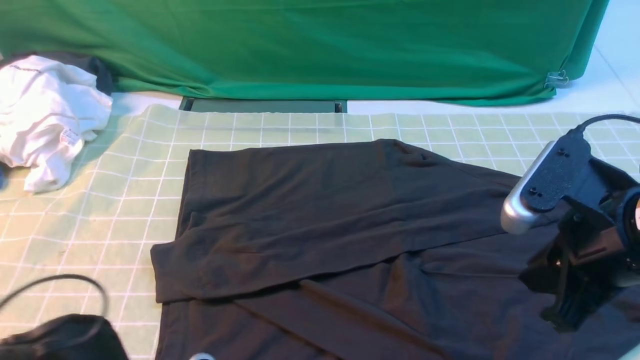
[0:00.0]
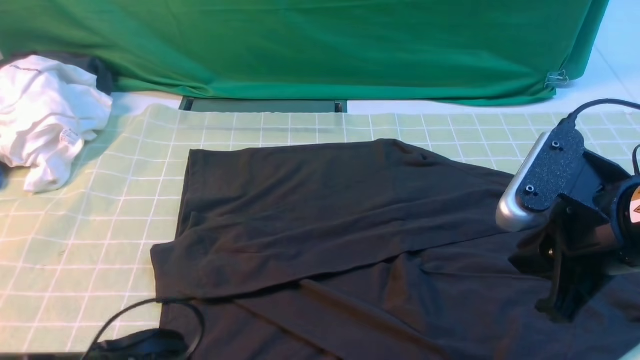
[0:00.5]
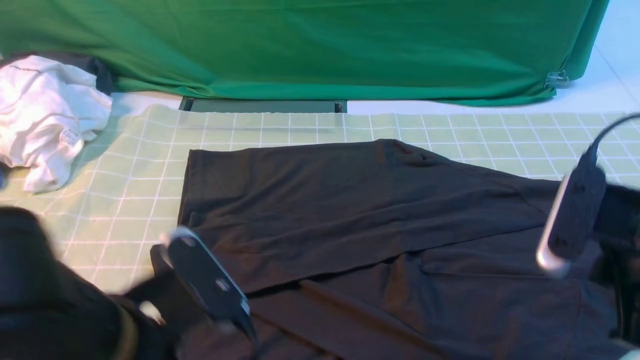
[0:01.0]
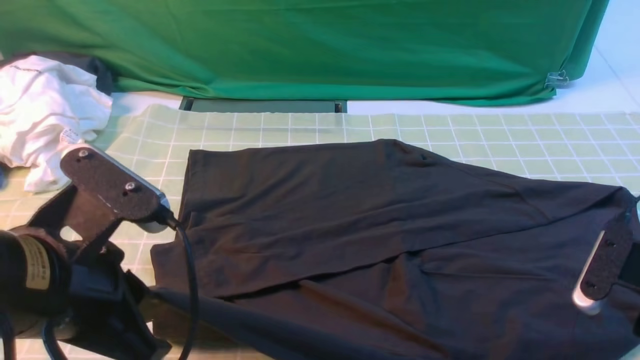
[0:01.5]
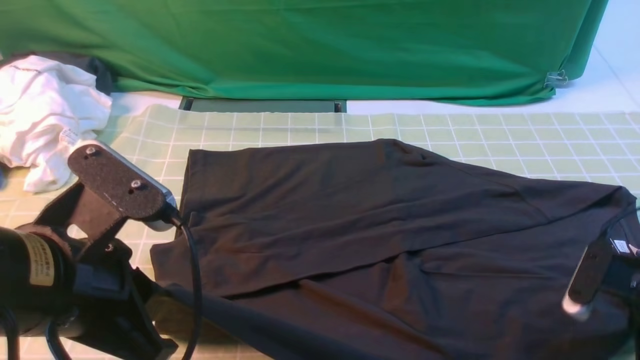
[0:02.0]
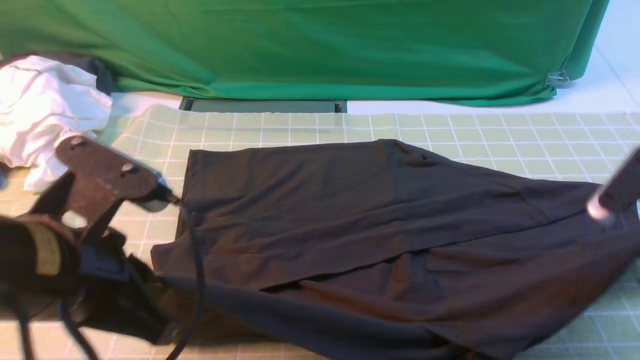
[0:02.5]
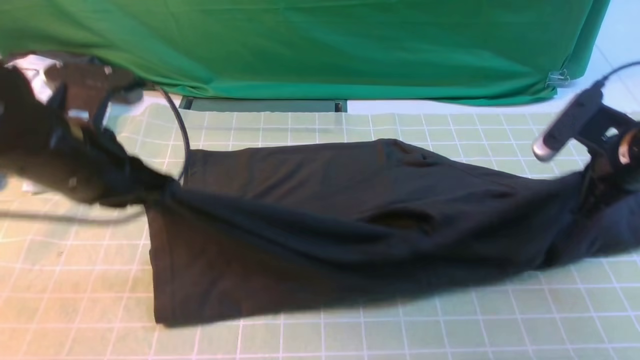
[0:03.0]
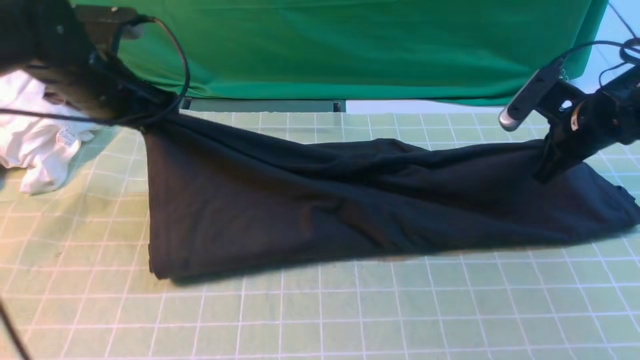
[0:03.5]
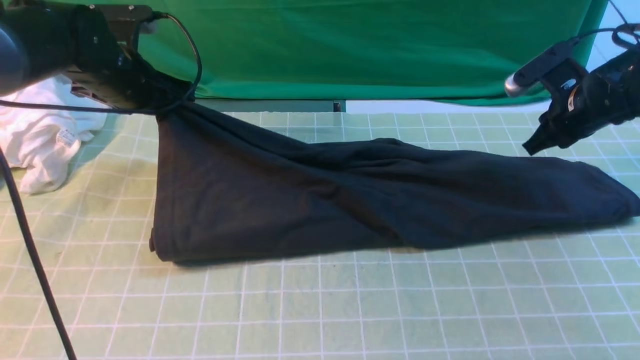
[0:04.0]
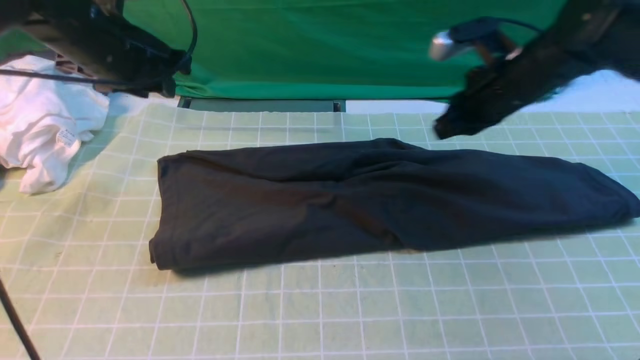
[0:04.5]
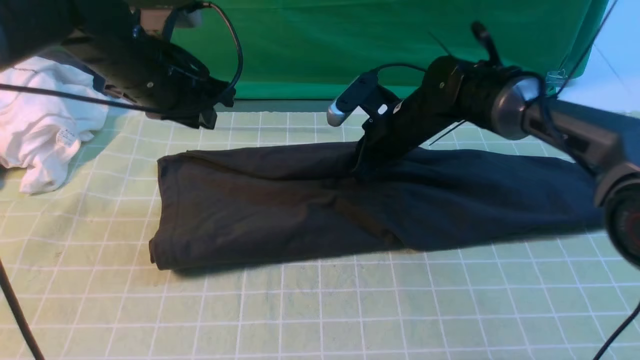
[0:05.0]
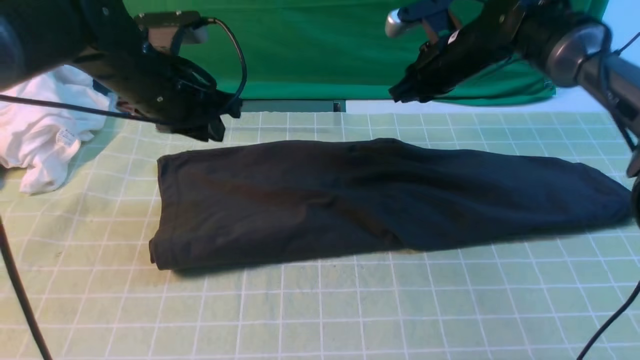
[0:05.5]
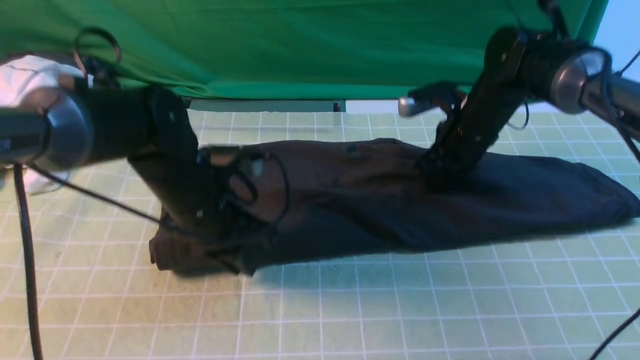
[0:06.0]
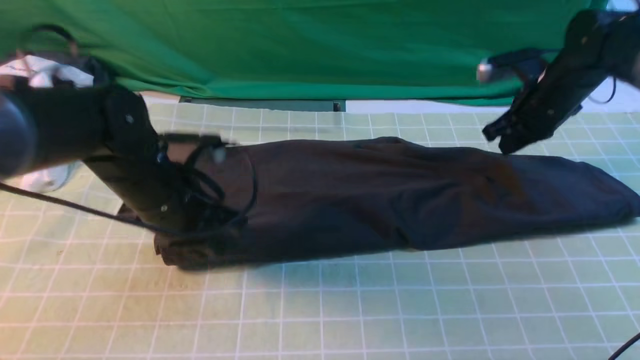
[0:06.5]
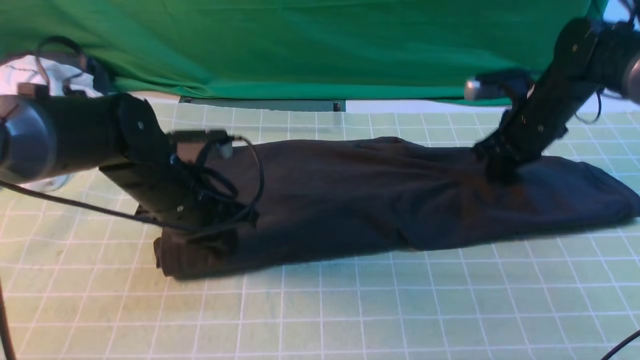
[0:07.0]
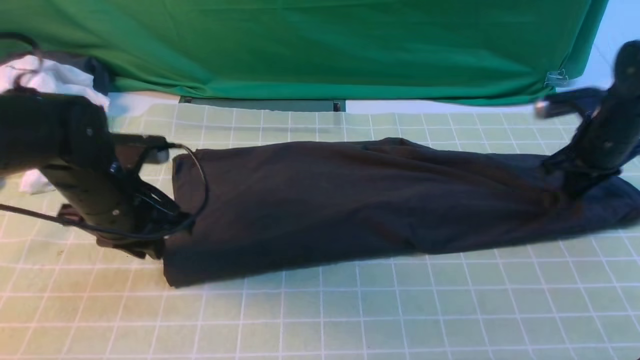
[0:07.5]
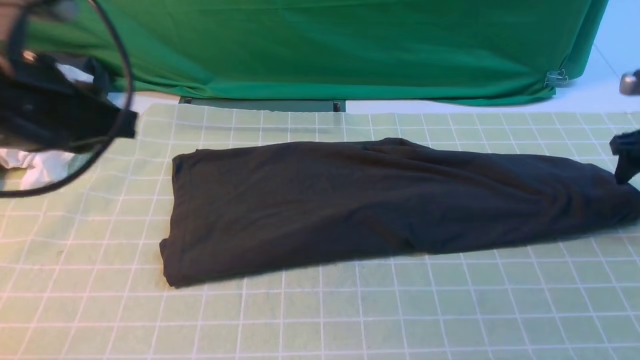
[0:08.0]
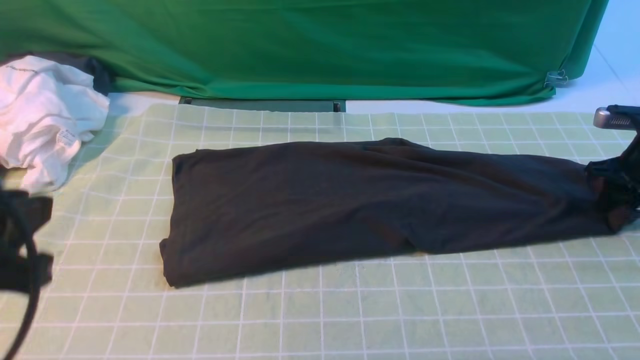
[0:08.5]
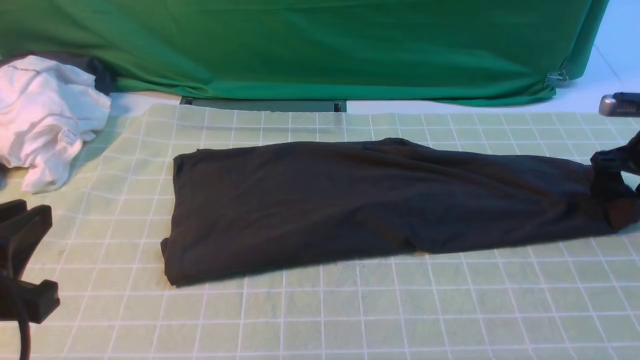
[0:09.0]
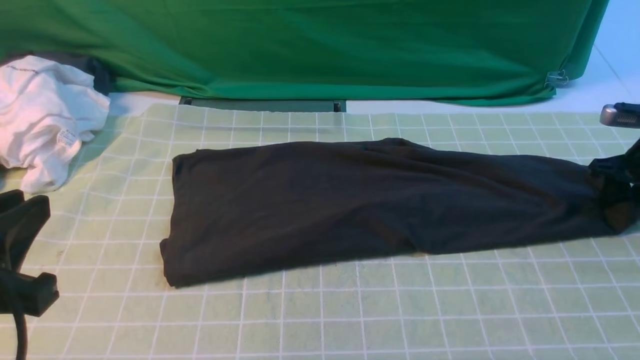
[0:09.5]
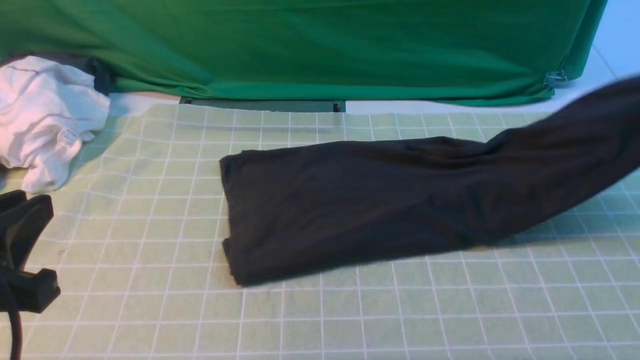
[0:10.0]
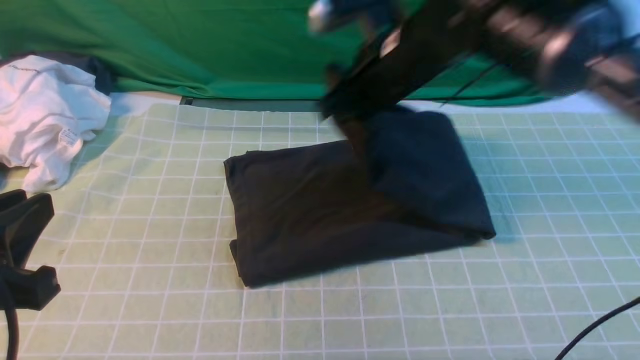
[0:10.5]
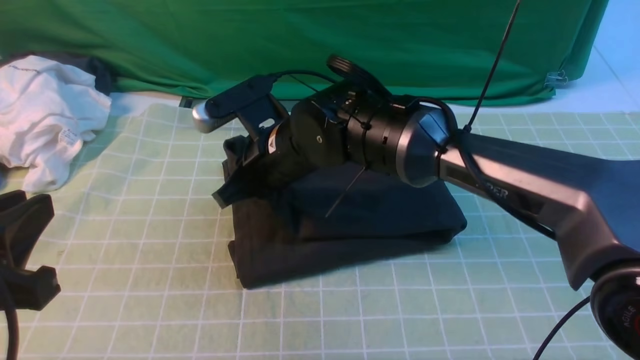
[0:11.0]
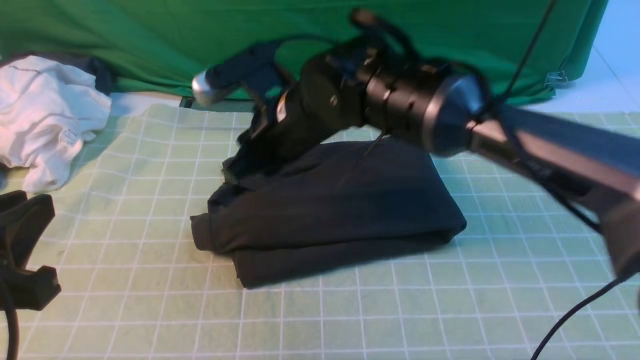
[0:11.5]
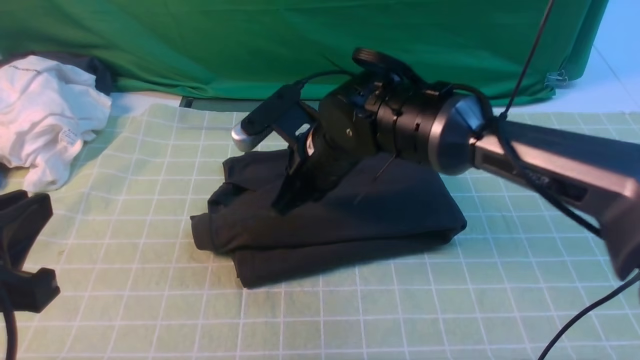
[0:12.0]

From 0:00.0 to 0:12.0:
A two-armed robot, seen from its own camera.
Step, from 0:00.0 to 0:02.0: use both arms simultaneously to clamp the lower edge of the clothing fabric.
Step, from 0:02.5 to 0:05.0: use both arms to drag the lower edge of the fabric forward and fold it over the upper edge.
Step, from 0:05.5 to 0:08.5: use the right arm to clamp the right edge of the fabric.
Step, from 0:09.0 to 0:11.0: use the right arm to drag the right edge of the fabric to the left and folds it over the left edge.
From 0:00.0 to 0:02.0: The left gripper goes approximately 15 cm upward and forward, and closes its fingers; the right gripper goes approximately 15 cm downward and to the right, and opens and closes again.
From 0:02.0 to 0:04.0: Both grippers travel together forward, approximately 25 cm.
From 0:04.0 to 0:06.0: The right gripper goes approximately 10 cm to the left. The left gripper travels backward, to the right and downward by approximately 15 cm.
From 0:06.0 to 0:08.0: The left gripper shifts roughly 20 cm upward, backward and to the left, while the right gripper heads to the right, covering approximately 20 cm, and opens.
From 0:08.0 to 0:10.0: The left gripper travels backward and downward by roughly 15 cm. Meanwhile the right gripper travels upward by some 10 cm, and closes its fingers.
From 0:10.0 to 0:12.0: The right gripper is displaced to the left by about 35 cm.

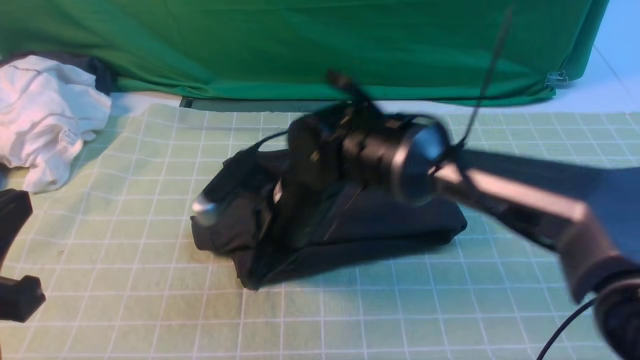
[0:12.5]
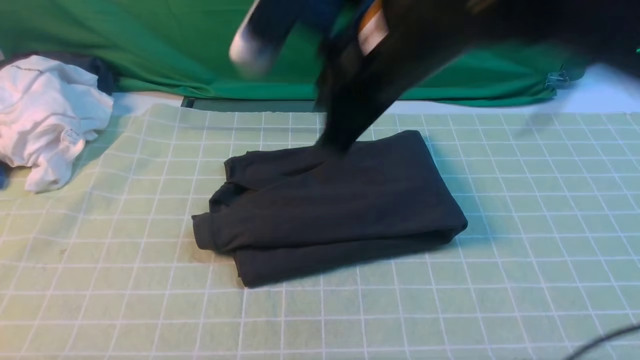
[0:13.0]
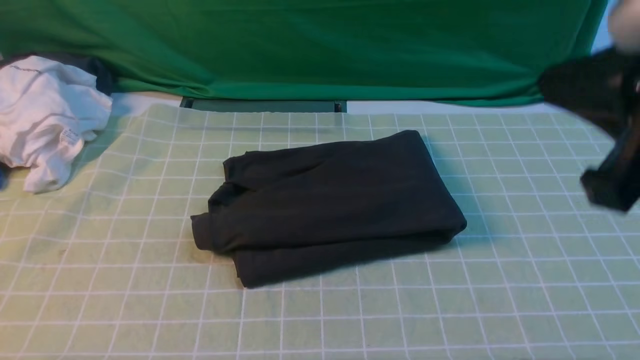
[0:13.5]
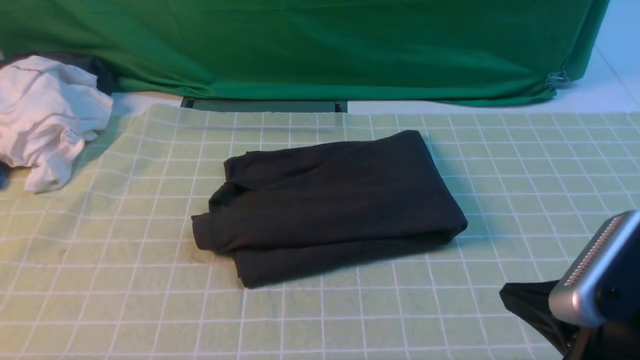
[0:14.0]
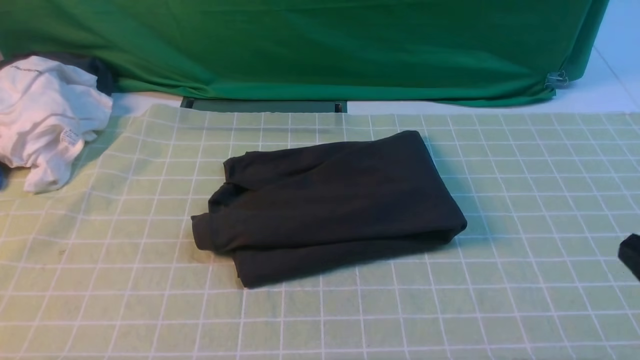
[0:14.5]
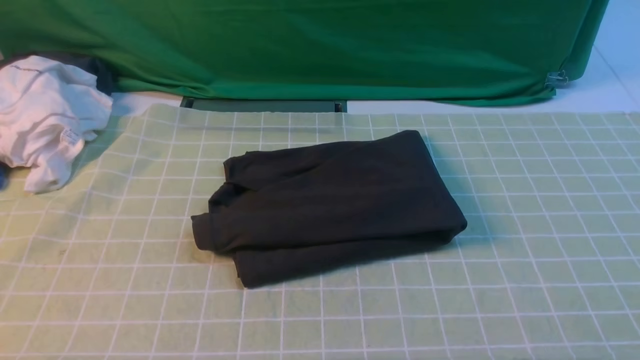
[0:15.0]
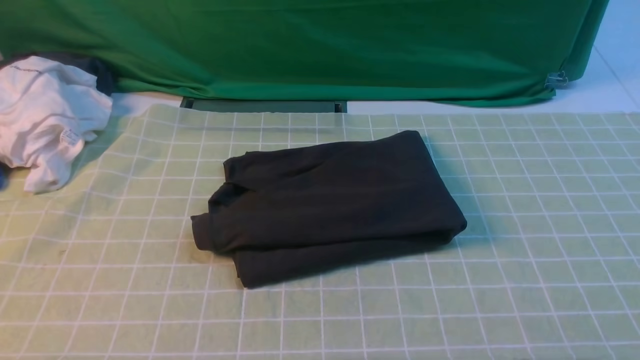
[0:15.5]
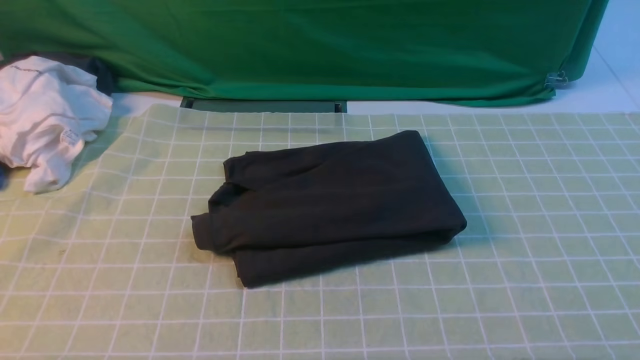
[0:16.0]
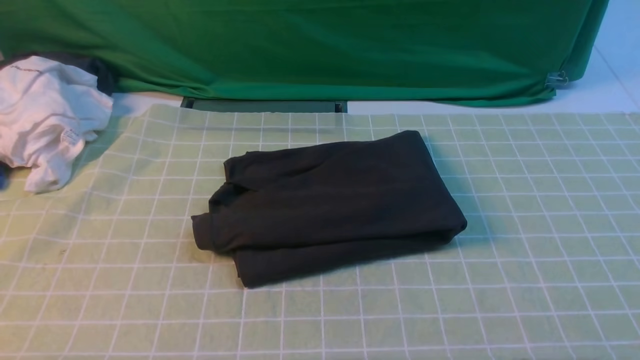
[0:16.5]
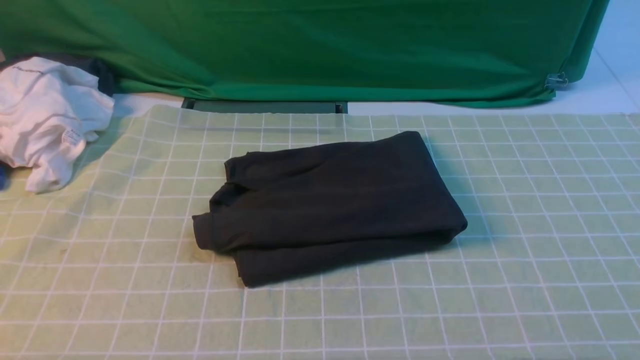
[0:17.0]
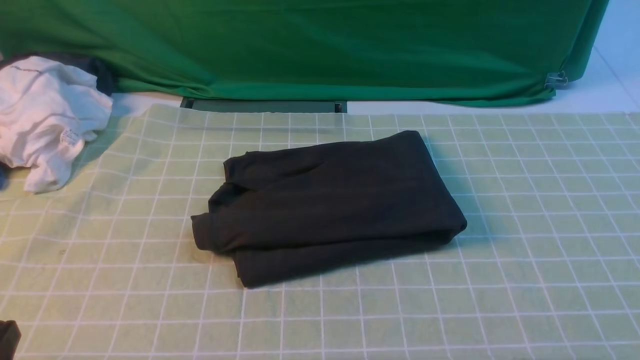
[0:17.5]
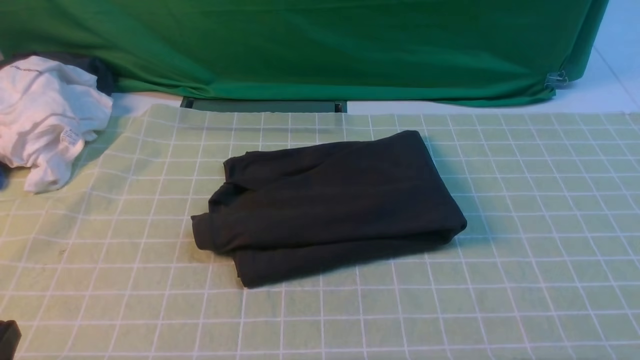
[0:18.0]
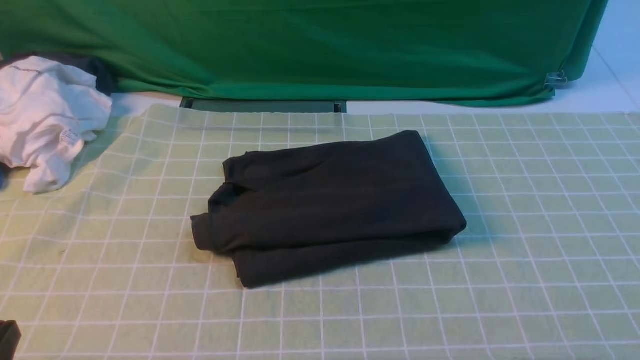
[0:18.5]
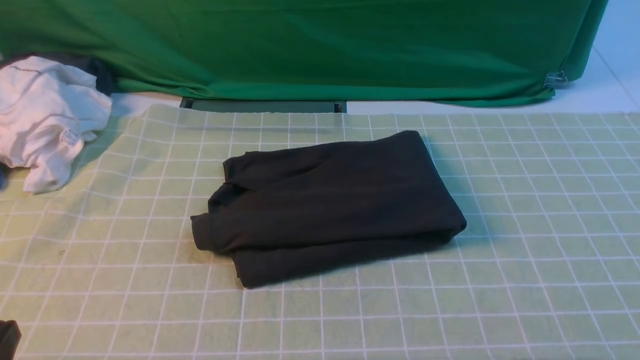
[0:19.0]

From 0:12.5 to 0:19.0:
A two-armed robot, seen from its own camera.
From 0:12.5 to 0:14.5: The right gripper moves to the right and backward, some 40 cm.

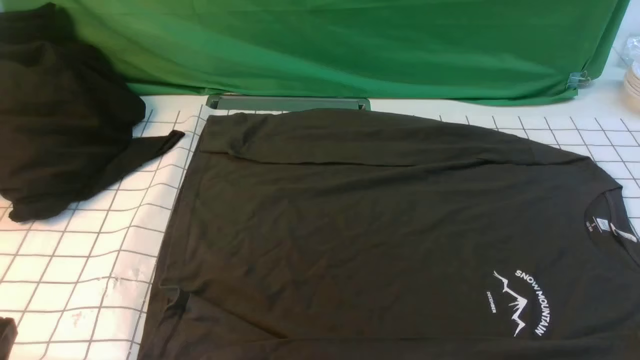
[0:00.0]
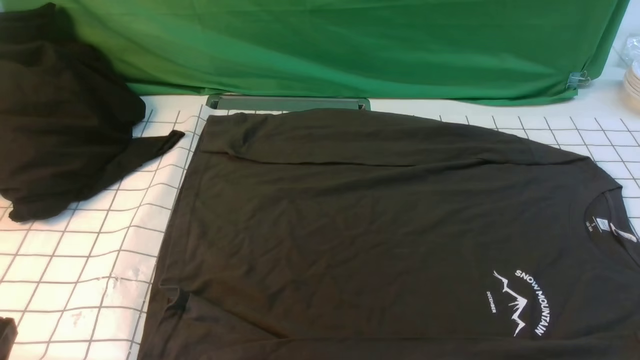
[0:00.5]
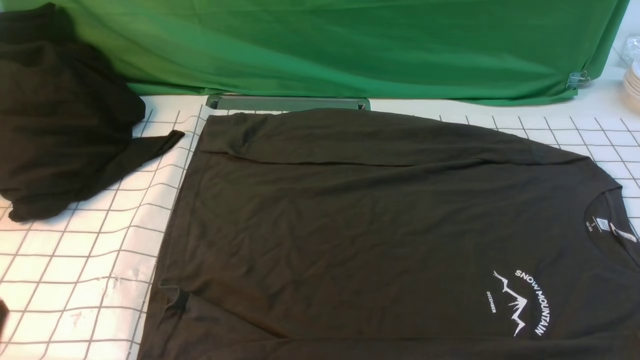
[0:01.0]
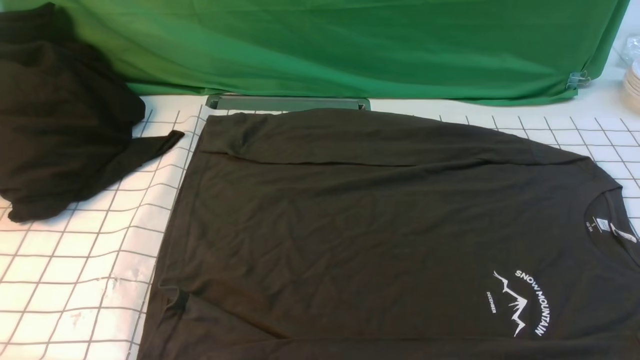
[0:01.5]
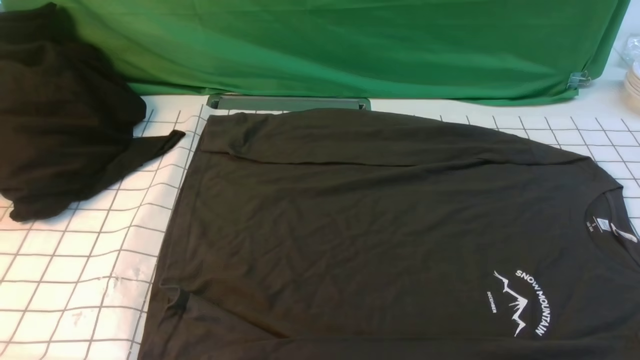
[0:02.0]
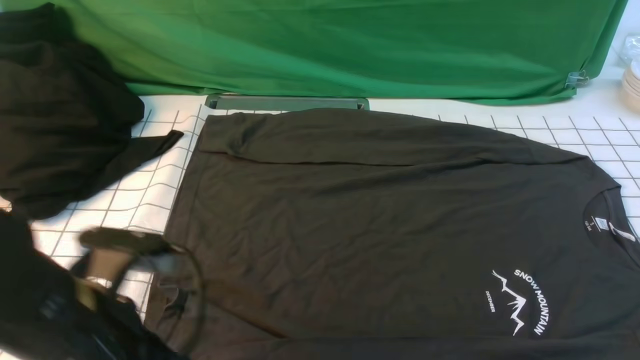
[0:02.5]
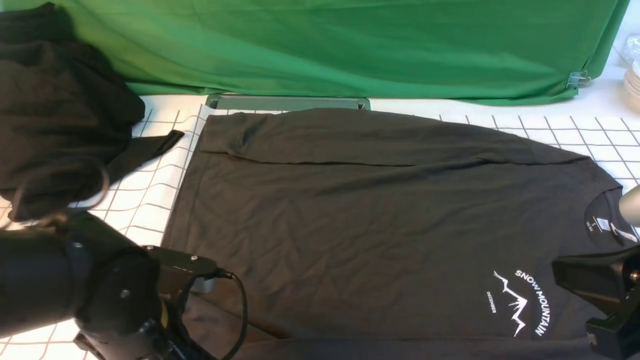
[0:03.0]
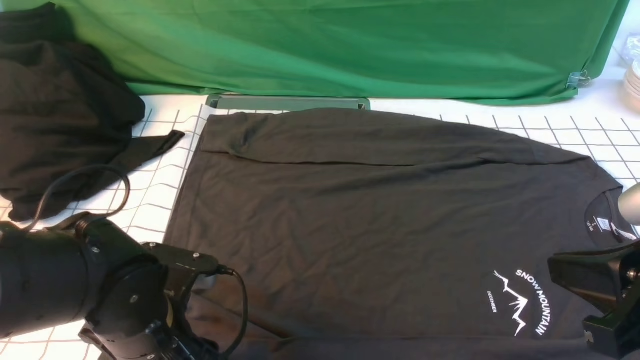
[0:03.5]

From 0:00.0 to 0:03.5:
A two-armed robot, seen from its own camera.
From 0:02.0 to 0:03.5: The left gripper goes about 25 cm downward and to the right, and opens. Meanwhile the right gripper shifts about 15 cm to the left, forward and upward, and closes its fingers.
